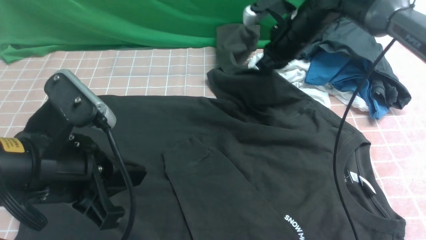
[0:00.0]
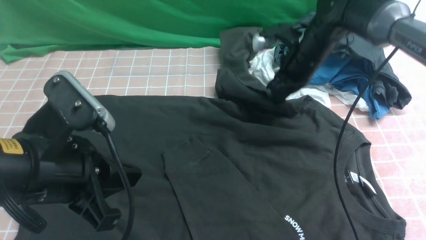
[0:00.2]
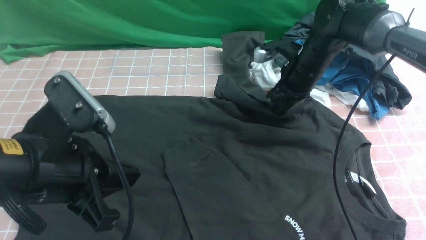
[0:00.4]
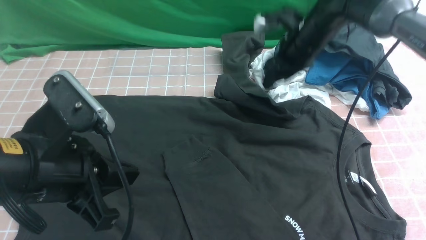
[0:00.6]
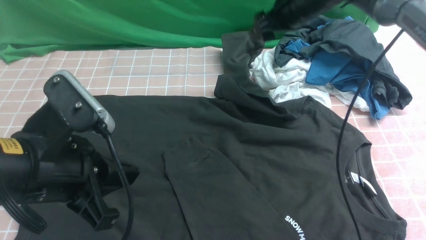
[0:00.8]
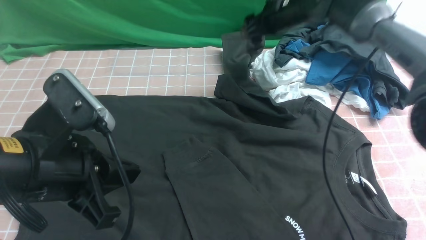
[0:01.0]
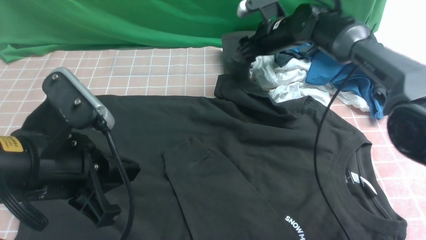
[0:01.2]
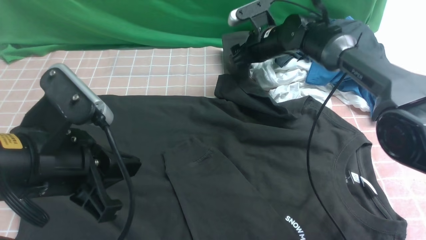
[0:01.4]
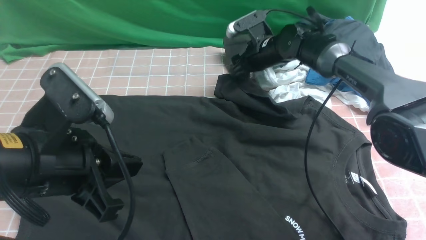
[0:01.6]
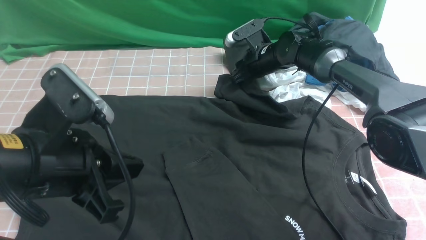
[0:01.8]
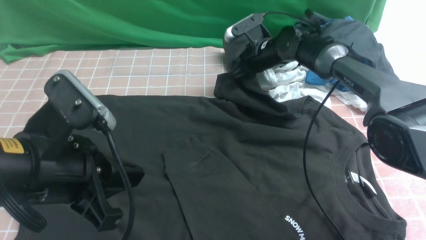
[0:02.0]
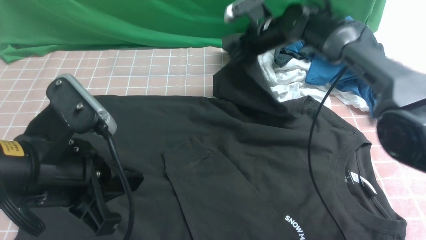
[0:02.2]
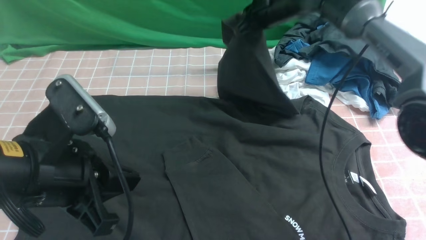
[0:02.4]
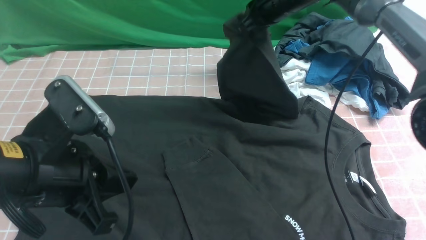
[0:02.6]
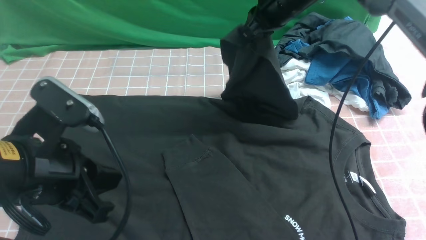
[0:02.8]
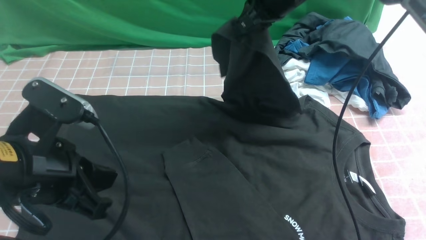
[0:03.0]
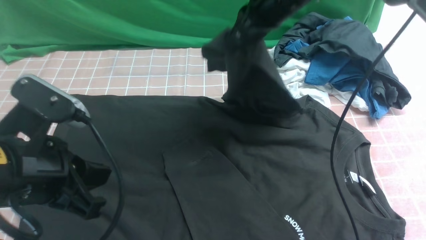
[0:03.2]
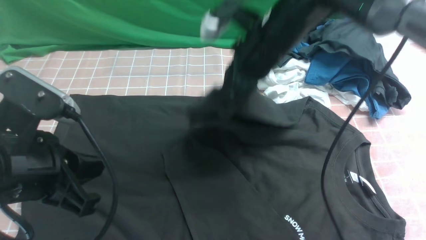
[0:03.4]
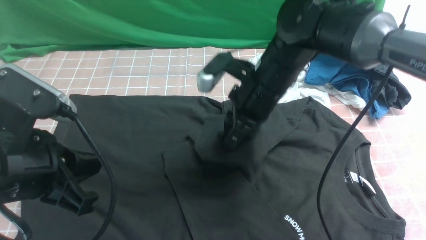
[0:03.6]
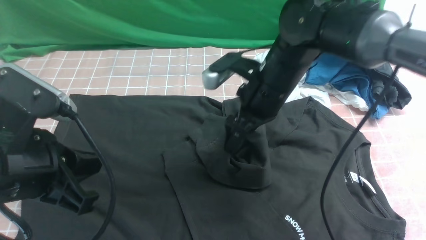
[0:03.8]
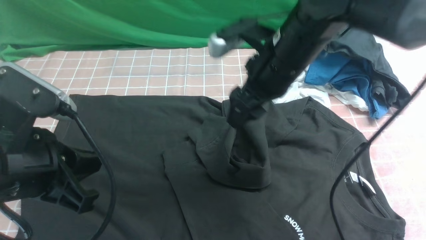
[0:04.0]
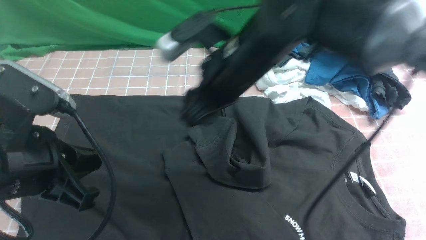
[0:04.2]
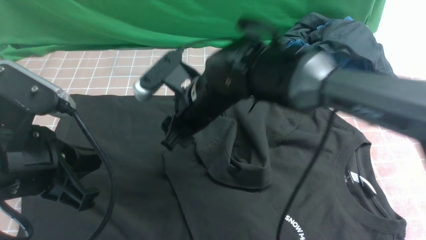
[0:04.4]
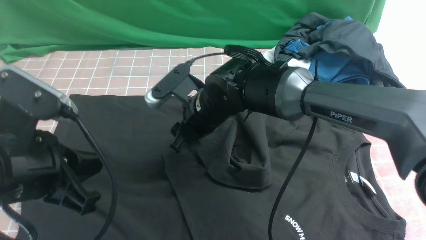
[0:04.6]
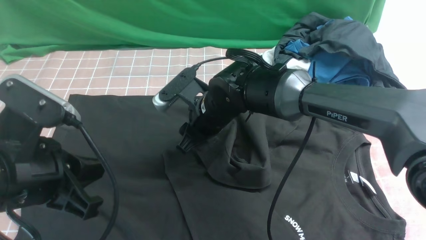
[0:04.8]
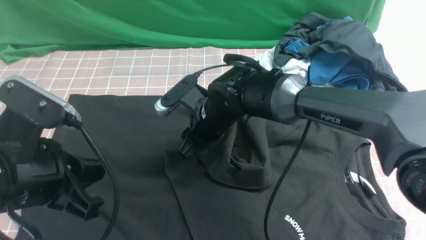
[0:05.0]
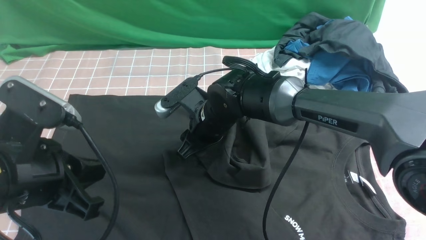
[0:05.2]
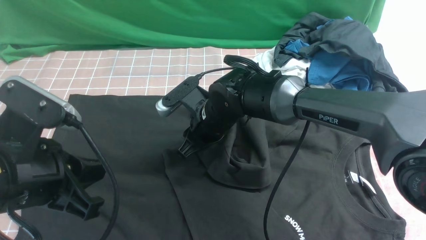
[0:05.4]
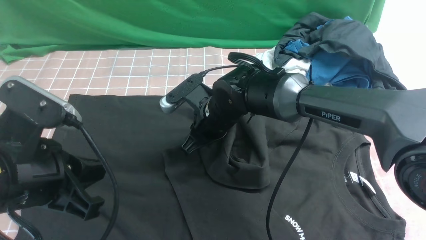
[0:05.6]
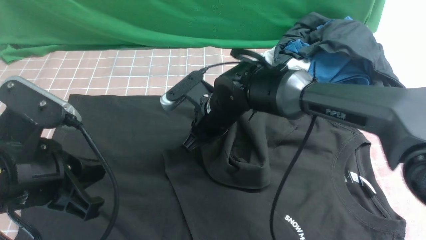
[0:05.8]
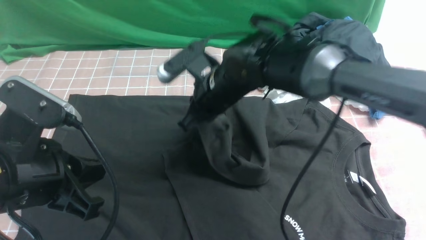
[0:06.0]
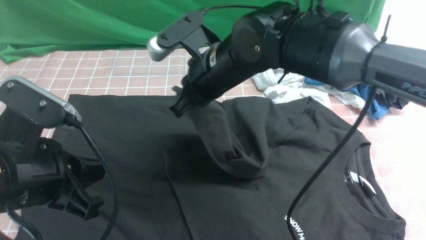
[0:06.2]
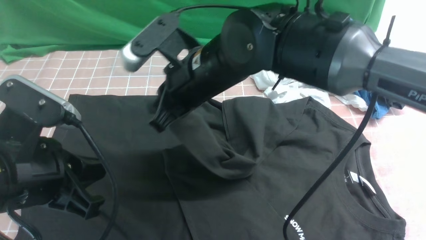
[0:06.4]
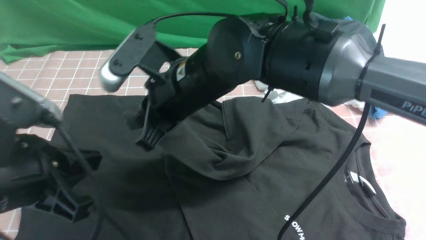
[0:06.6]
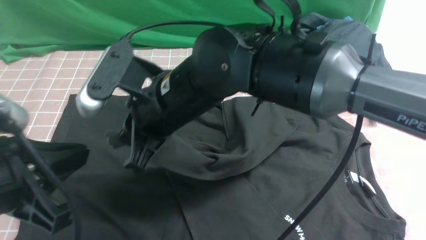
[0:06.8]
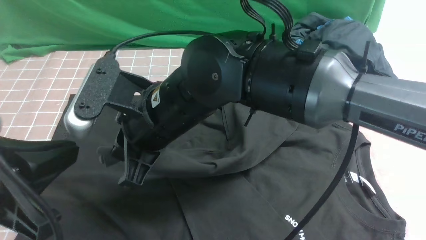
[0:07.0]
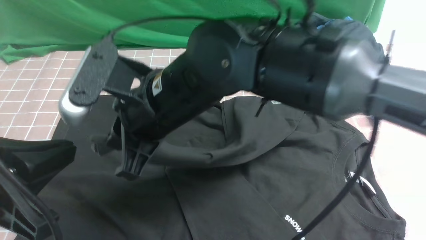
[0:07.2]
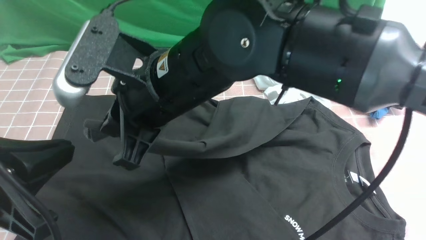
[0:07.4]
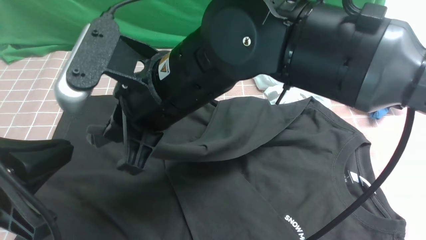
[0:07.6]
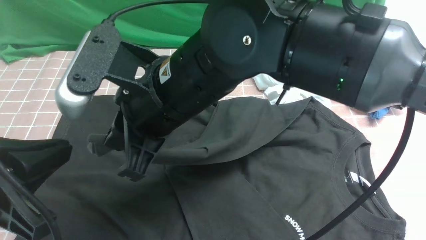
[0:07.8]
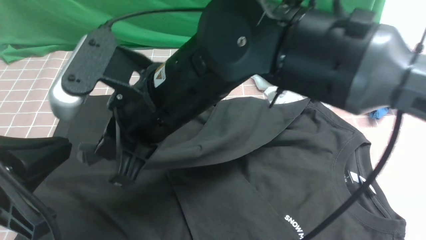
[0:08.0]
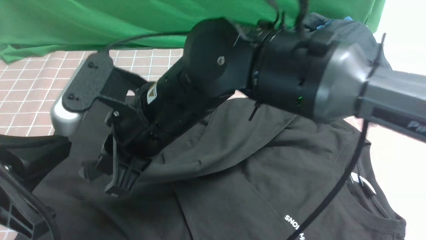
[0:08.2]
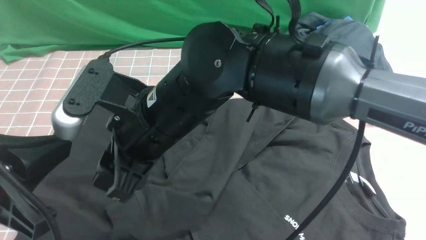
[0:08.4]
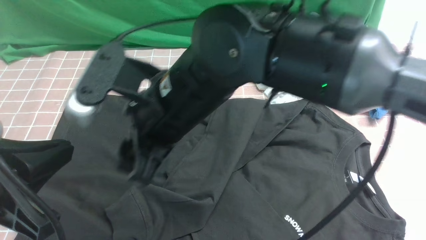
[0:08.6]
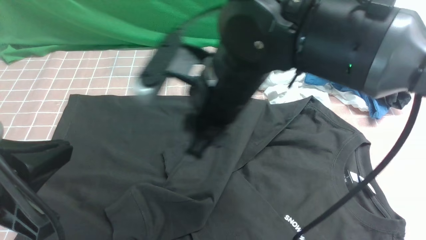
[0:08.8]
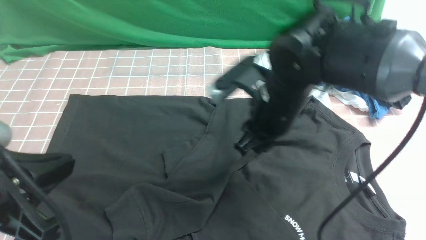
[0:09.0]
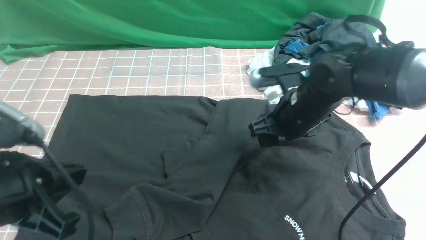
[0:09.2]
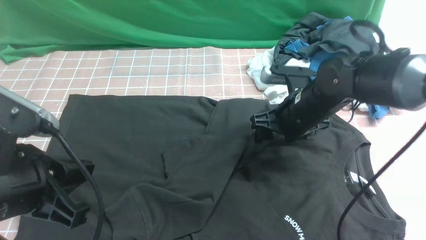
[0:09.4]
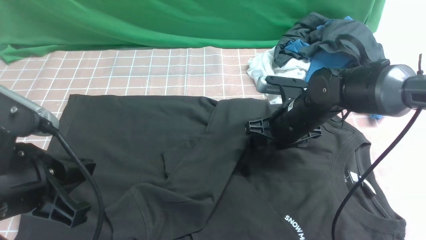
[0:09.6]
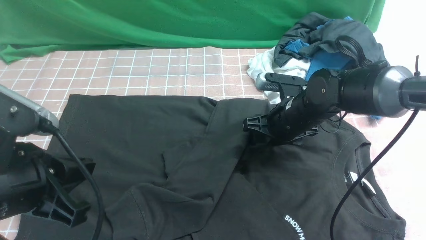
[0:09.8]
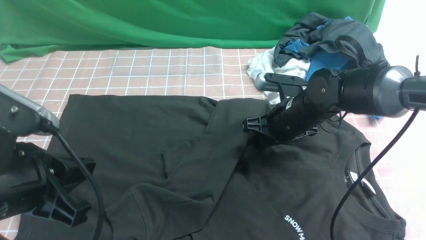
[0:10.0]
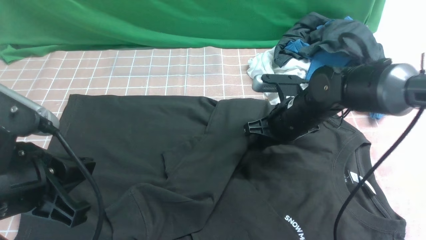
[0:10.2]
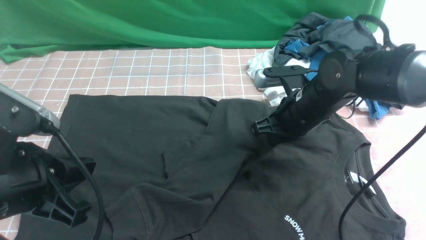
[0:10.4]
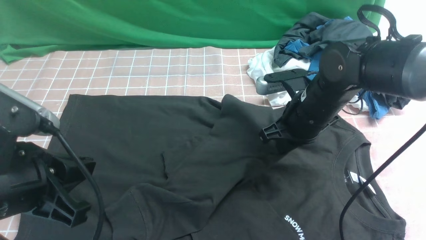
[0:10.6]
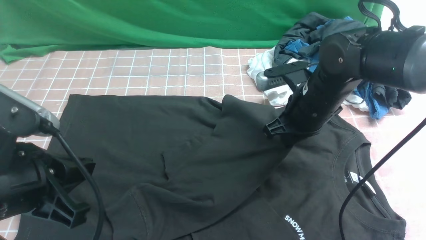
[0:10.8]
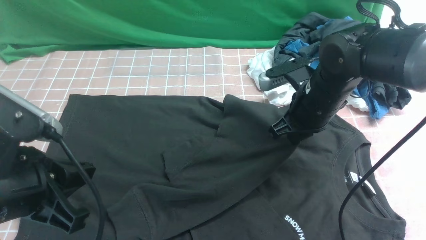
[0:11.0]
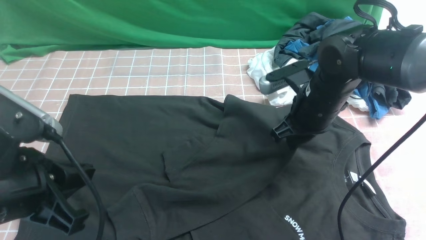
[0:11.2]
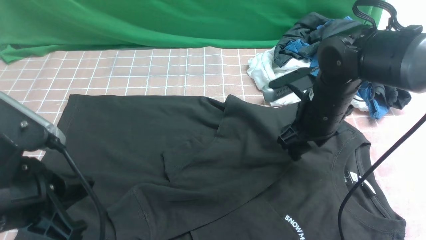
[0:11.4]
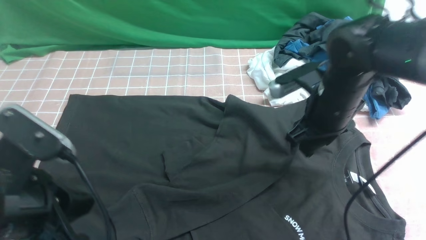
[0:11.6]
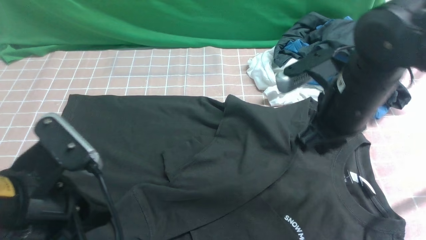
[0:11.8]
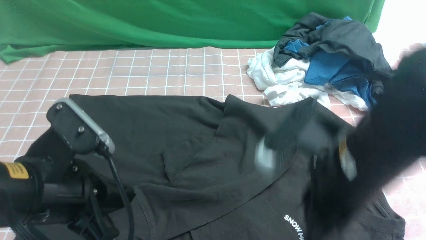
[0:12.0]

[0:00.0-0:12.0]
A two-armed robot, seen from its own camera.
Step, 0:00.0 to 0:02.8: Spread the long sleeves with your arms and place them on the tabletop.
Step, 0:03.0 to 0:05.4: Use your right arm to clamp the cuff farthest to him.
Step, 0:05.6 to 0:08.4: use the right arm to drag and drop the cuff onto the cuffclosest to the right arm.
0:00.0 to 0:01.6: The right gripper shifts approximately 10 cm downward and forward, and opens.
0:01.6 to 0:03.0: The right gripper travels upward and backward by approximately 20 cm, and closes its fingers.
0:03.0 to 0:04.4: The right gripper travels to the left, backward and downward by approximately 20 cm, and opens.
0:04.4 to 0:06.0: The right gripper closes.
0:06.0 to 0:07.6: The right gripper is displaced backward and upward by some 15 cm. The left gripper goes about 5 cm backward.
0:07.6 to 0:09.0: The right gripper heads to the right, downward and forward, covering roughly 15 cm, and opens its fingers.
0:09.0 to 0:10.4: The right gripper shifts about 10 cm downward and to the right, and closes.
0:10.4 to 0:12.0: The right gripper is displaced backward and upward by some 20 cm, and opens up.

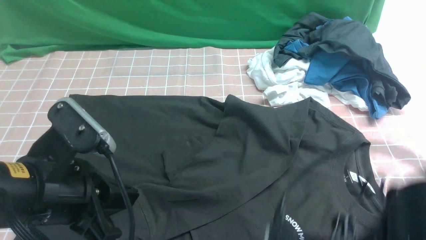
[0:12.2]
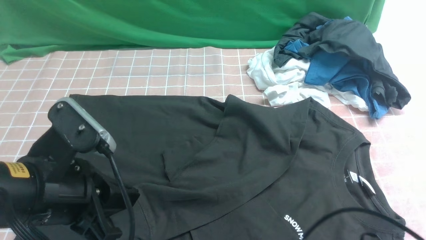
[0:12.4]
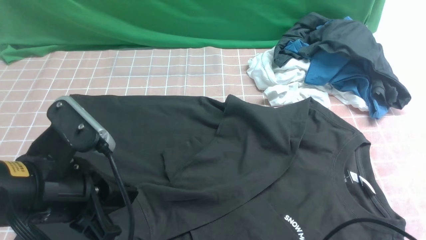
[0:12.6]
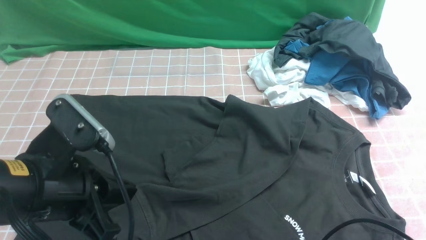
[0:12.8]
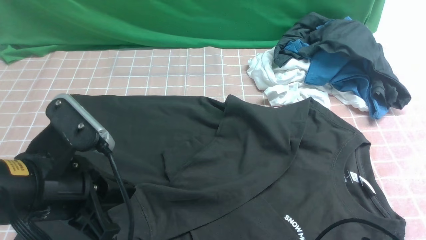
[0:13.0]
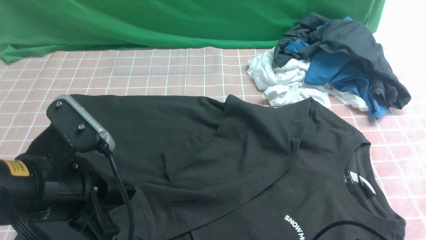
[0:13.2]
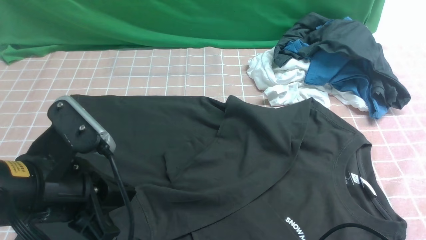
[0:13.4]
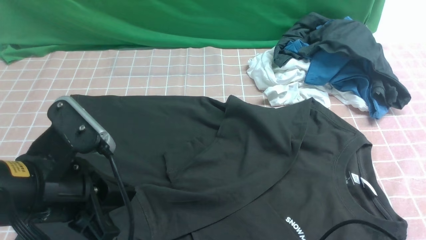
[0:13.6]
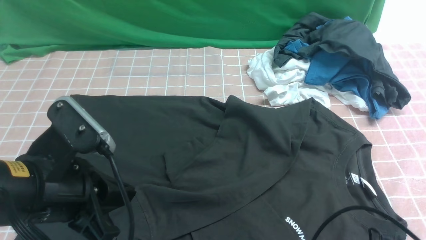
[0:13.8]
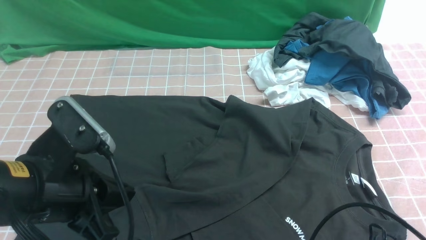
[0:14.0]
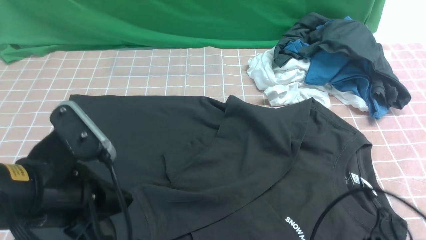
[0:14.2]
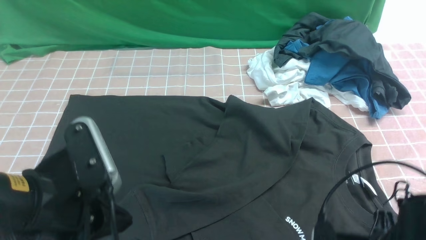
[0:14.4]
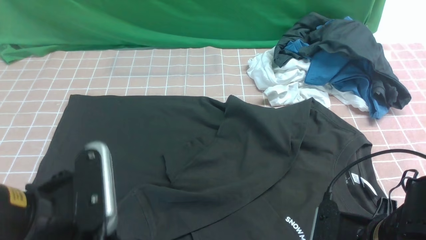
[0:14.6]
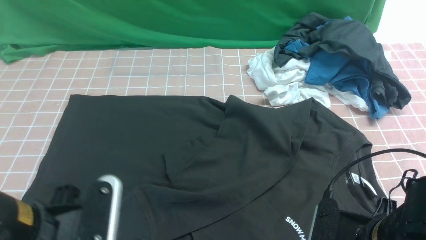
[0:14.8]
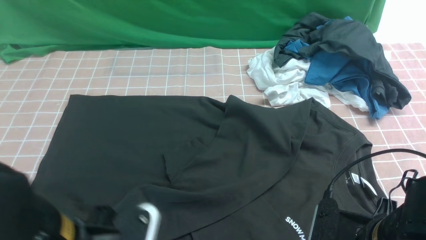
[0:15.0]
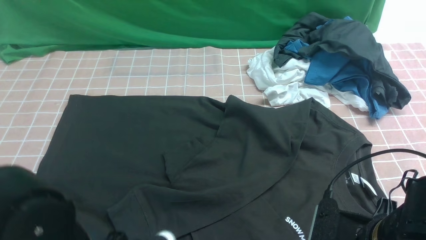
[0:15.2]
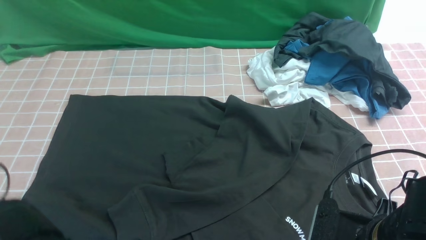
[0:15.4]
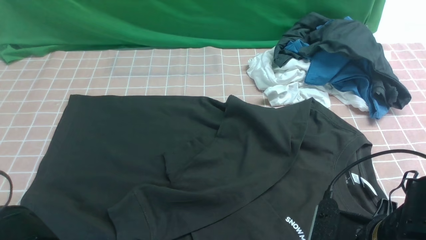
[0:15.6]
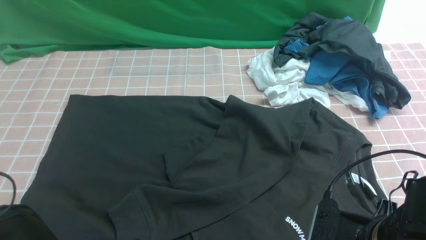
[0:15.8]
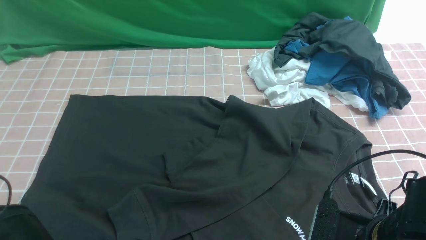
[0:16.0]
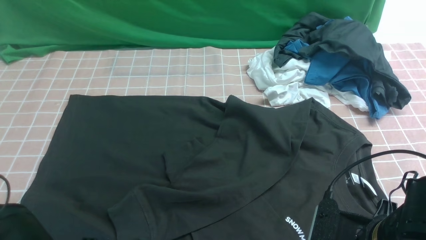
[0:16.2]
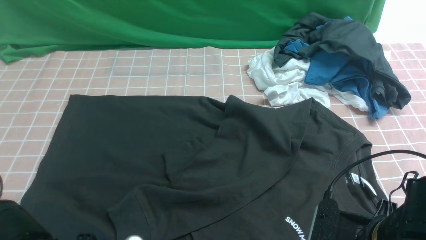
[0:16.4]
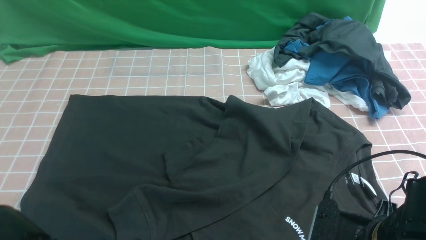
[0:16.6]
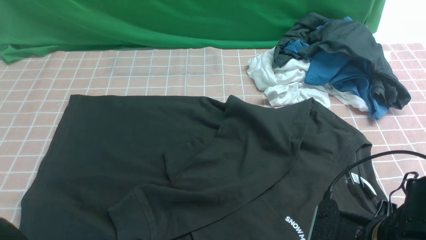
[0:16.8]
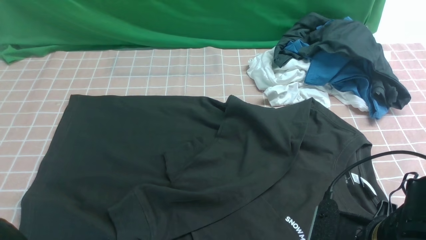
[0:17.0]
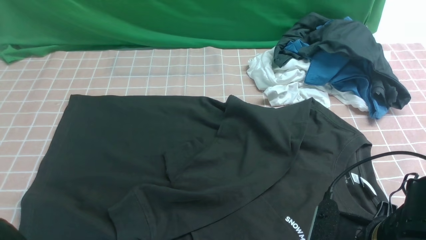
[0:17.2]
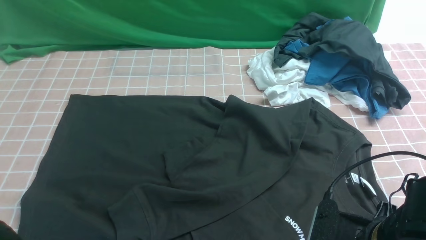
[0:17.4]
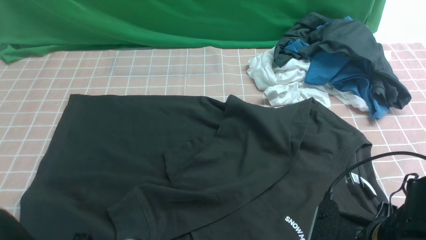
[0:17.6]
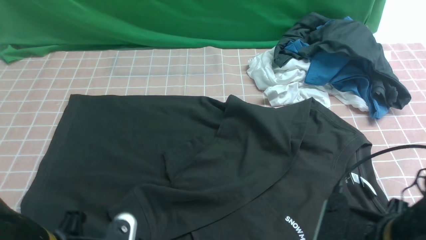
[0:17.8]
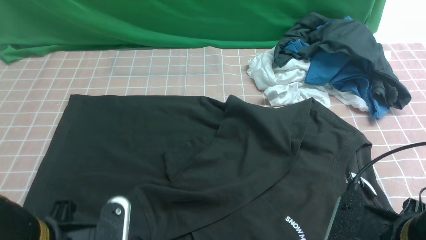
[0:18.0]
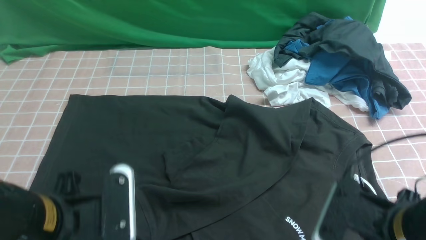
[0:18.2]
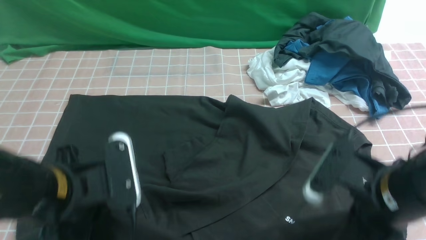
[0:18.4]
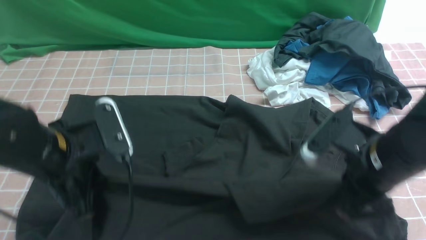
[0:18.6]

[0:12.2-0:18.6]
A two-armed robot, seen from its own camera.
Step, 0:12.2 to 0:18.0: use both arms simultaneously to clamp the lower edge of the clothing fabric.
0:12.2 to 0:13.8: The right gripper travels downward by some 5 cm, and closes its fingers.
0:13.8 to 0:15.4: The right gripper travels forward by some 5 cm. The left gripper heads downward and backward, covering some 10 cm, and opens its fingers.
0:15.4 to 0:17.0: The left gripper closes up.
0:17.0 to 0:18.6: The right gripper shifts about 10 cm forward; the left gripper shifts some 15 cm forward and upward, and closes.
